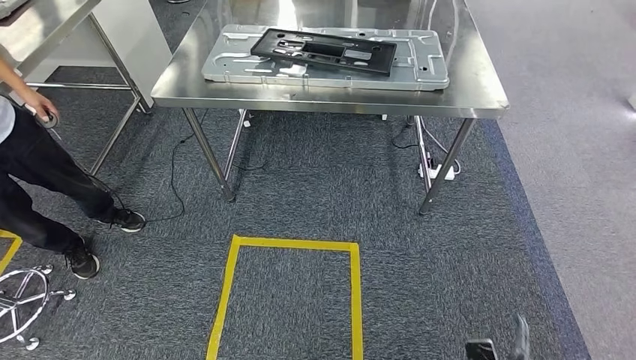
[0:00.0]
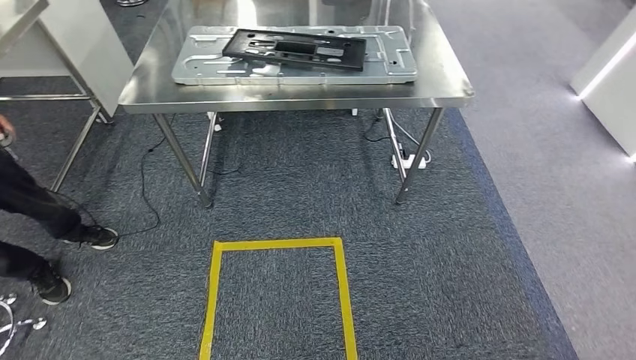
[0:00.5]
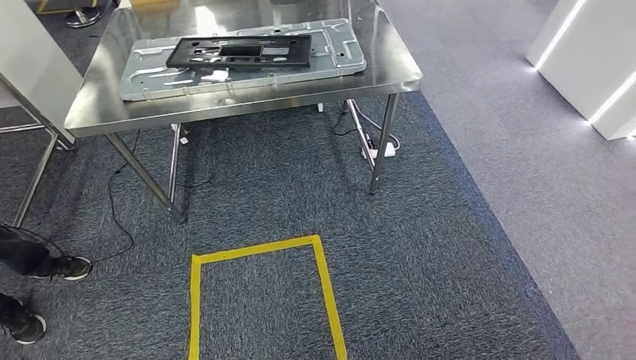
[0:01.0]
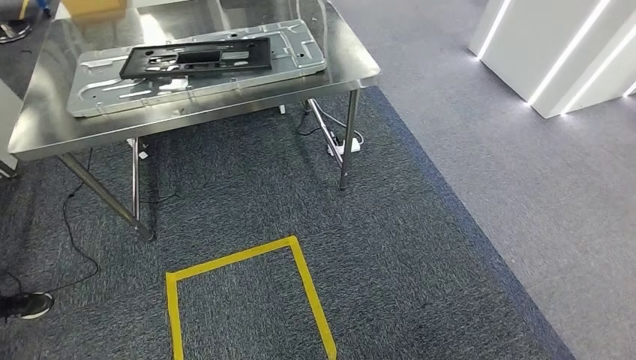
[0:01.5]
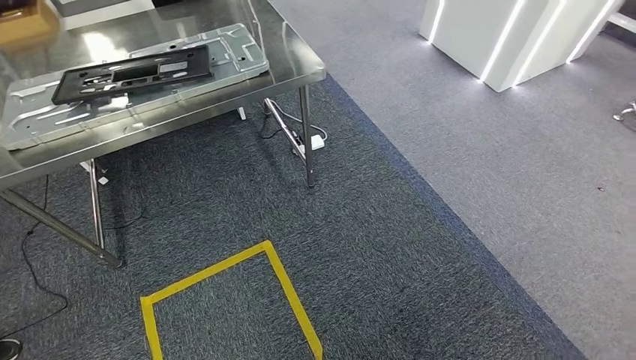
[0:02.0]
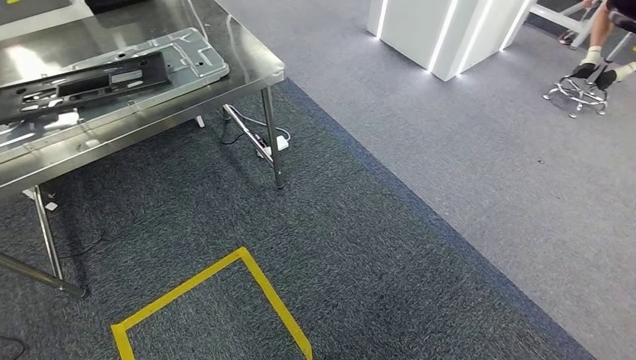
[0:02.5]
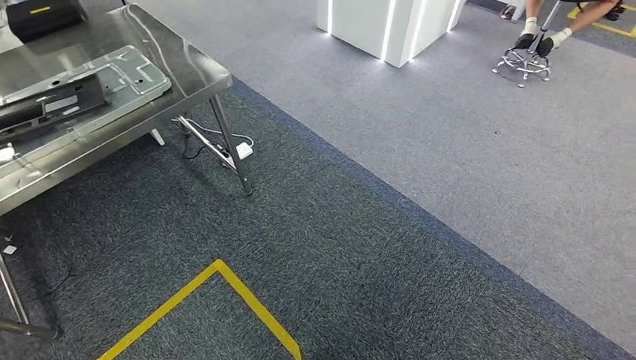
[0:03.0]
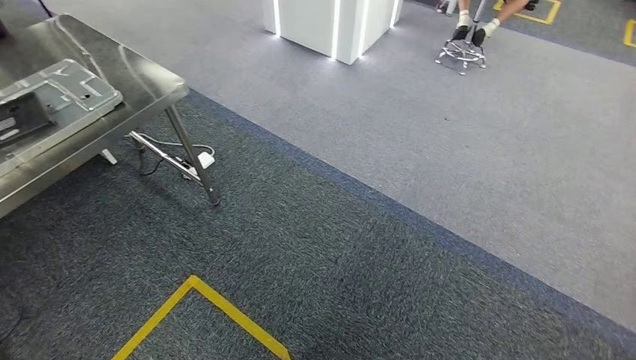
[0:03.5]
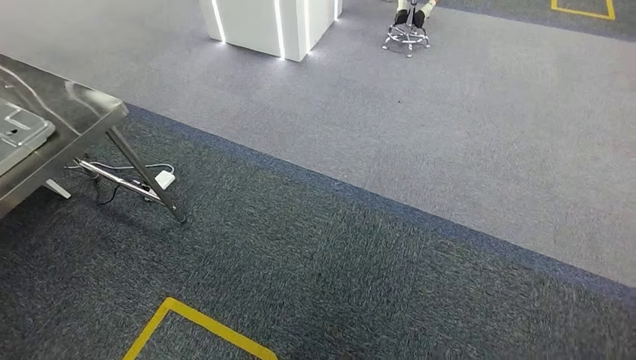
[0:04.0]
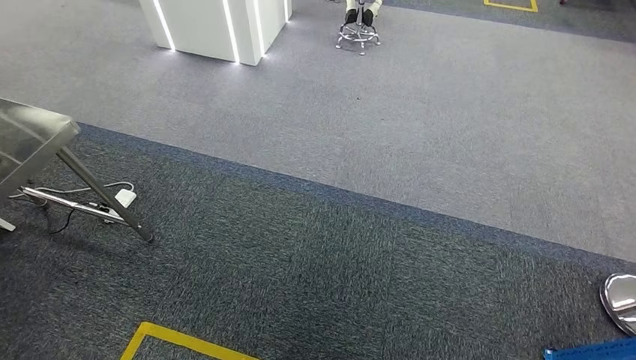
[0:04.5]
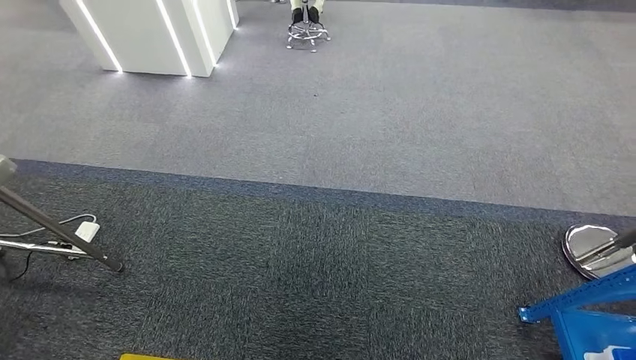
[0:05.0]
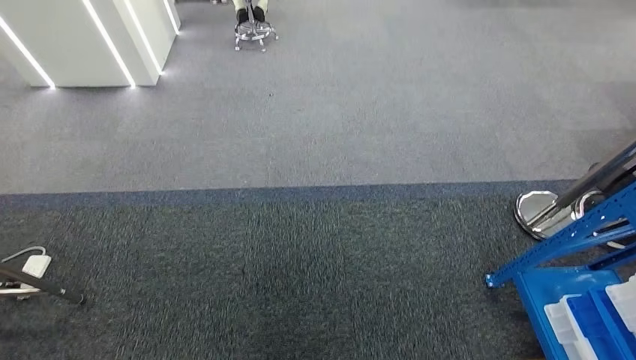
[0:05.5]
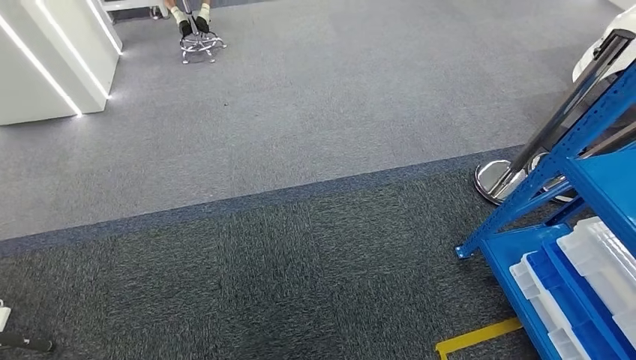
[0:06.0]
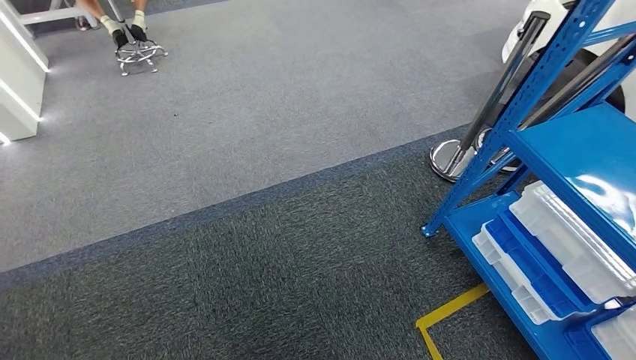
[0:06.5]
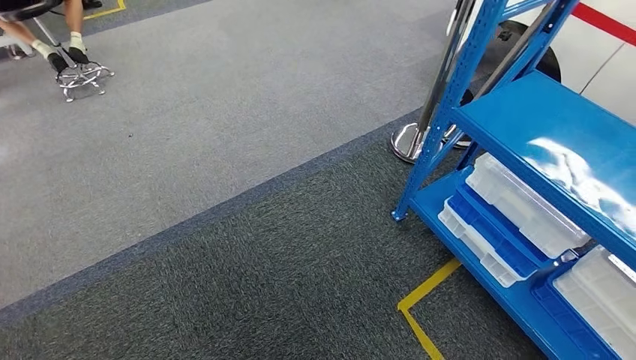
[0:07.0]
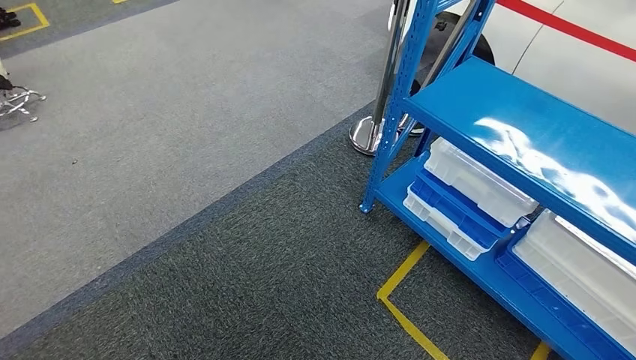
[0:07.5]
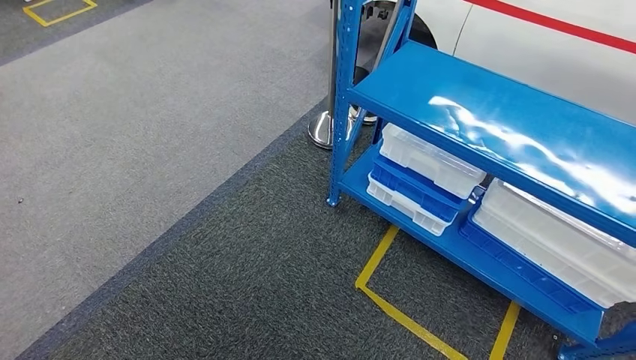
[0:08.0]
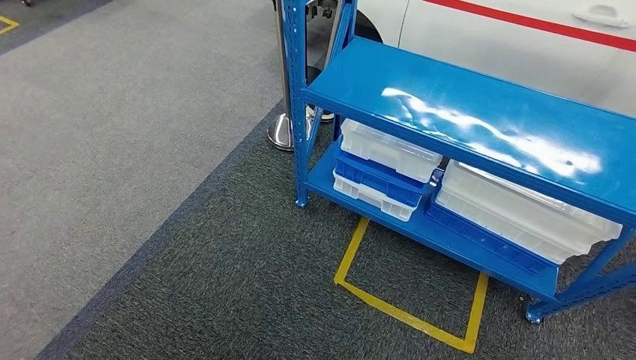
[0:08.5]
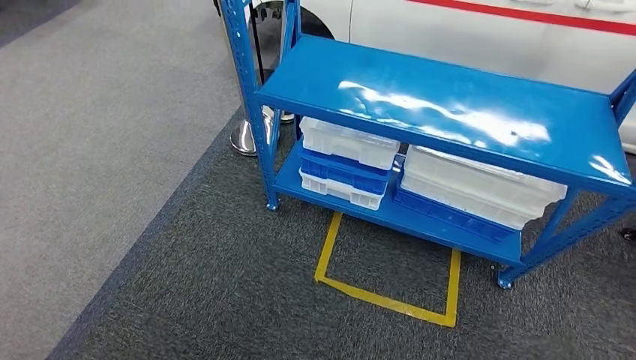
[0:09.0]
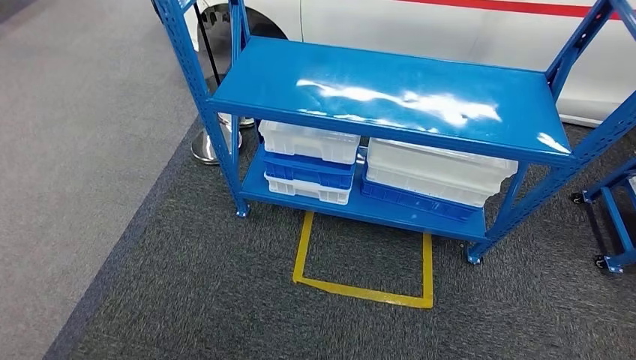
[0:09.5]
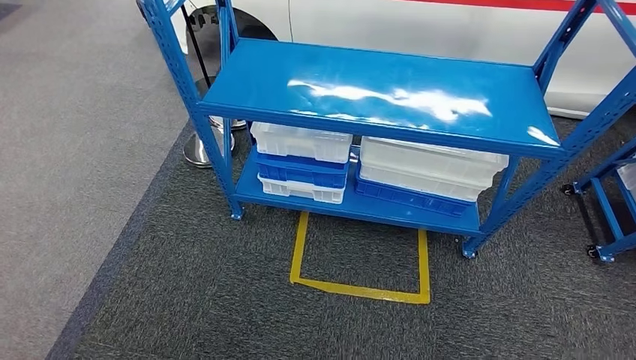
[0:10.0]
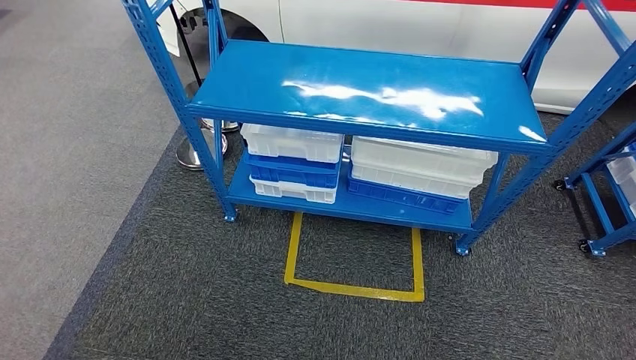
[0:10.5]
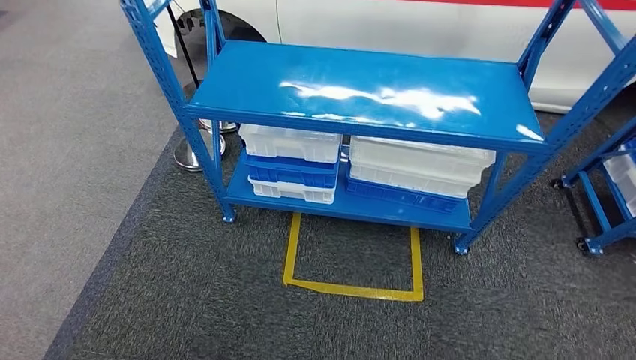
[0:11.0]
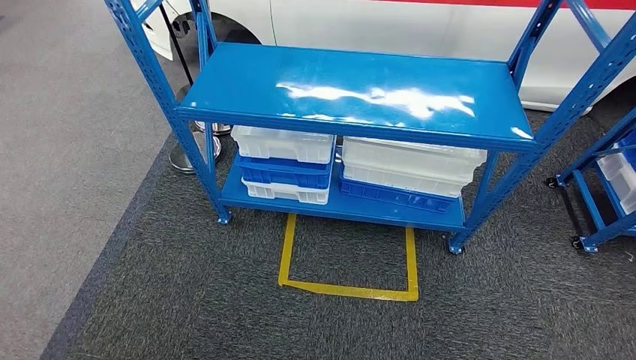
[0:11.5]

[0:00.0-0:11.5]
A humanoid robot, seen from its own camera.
Step, 0:00.0 to 0:11.5: Move to the initial position of the shelf.

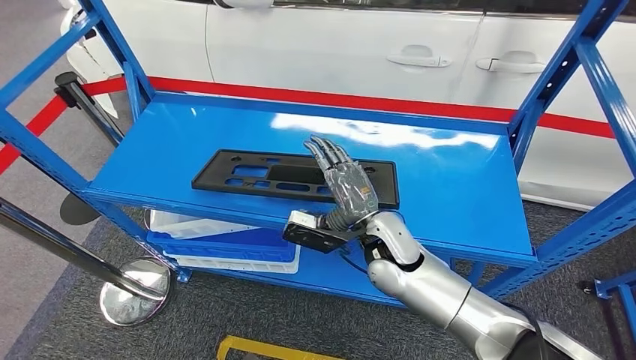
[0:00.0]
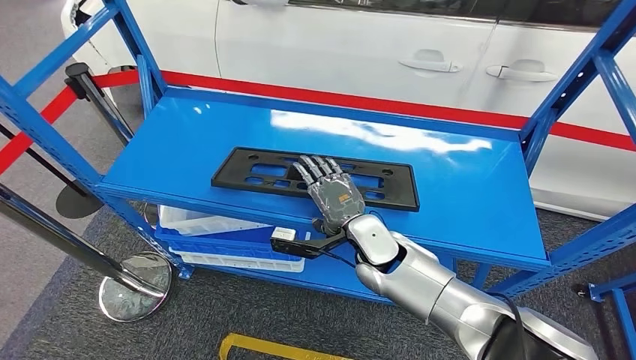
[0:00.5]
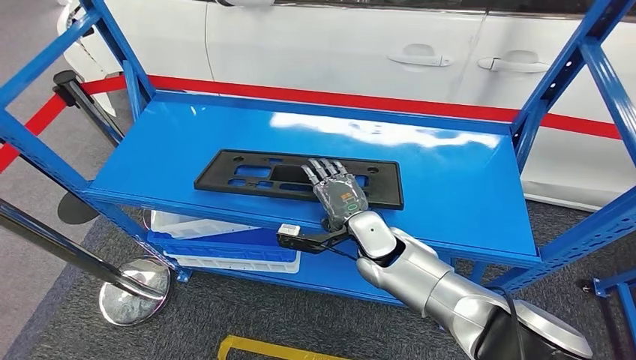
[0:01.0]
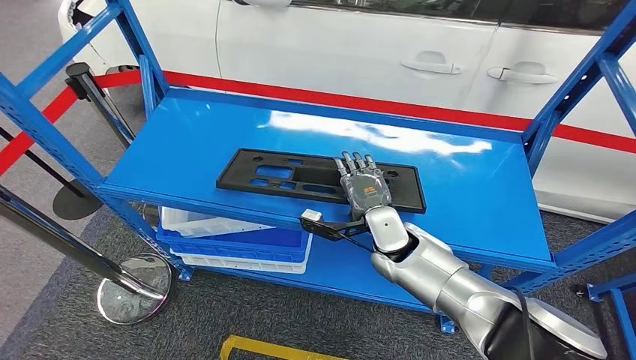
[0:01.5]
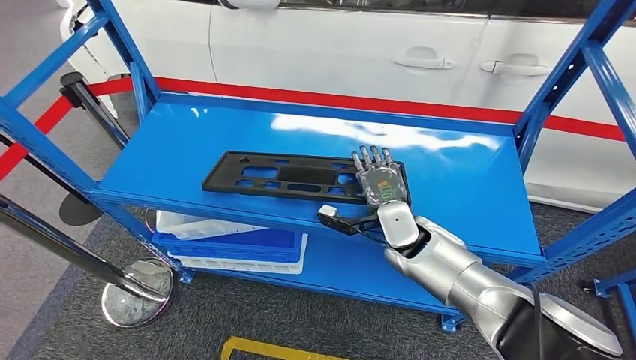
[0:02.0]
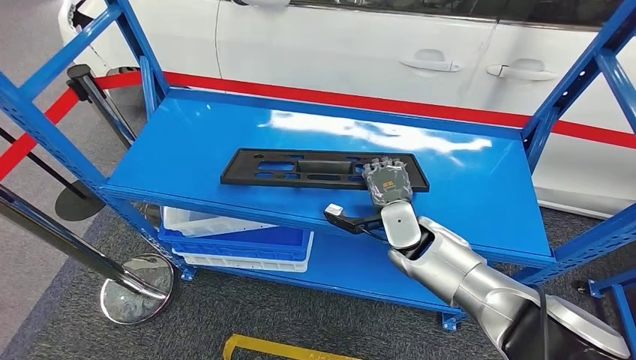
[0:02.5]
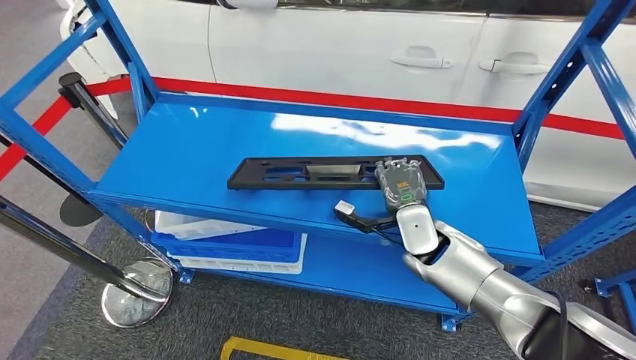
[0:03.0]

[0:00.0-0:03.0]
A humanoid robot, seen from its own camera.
Step, 0:00.0 to 0:03.0: Pick up the large material from the shelf.
